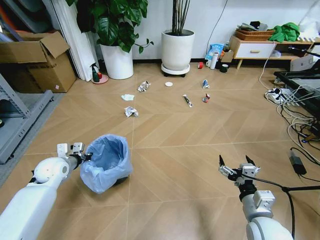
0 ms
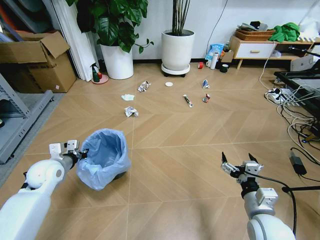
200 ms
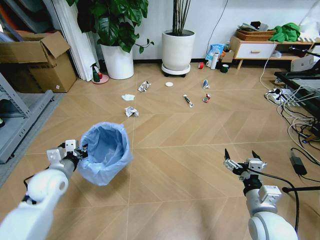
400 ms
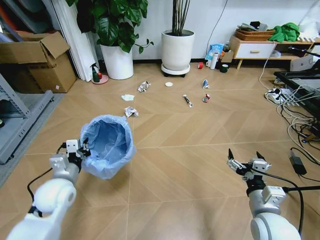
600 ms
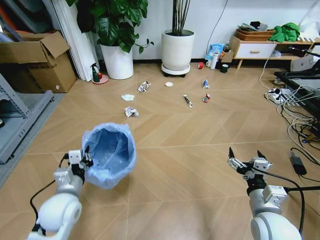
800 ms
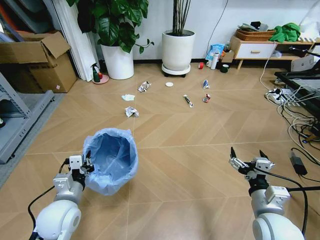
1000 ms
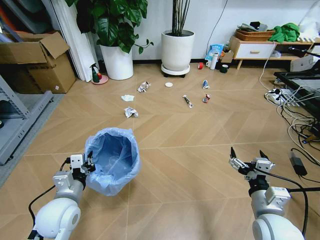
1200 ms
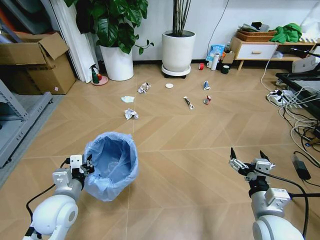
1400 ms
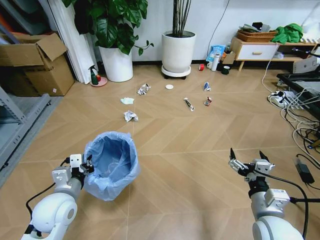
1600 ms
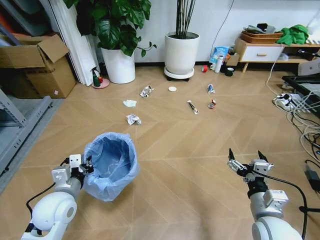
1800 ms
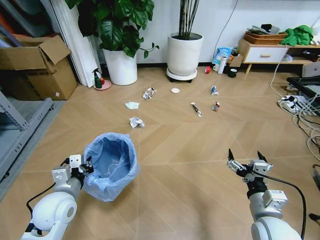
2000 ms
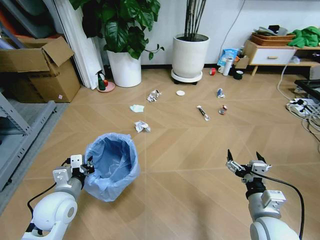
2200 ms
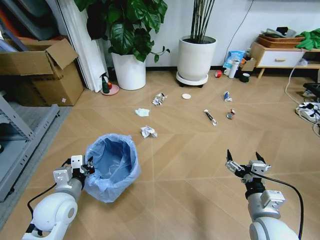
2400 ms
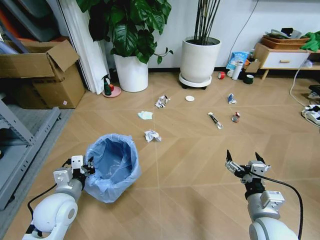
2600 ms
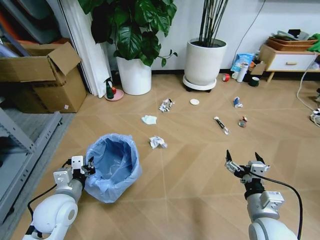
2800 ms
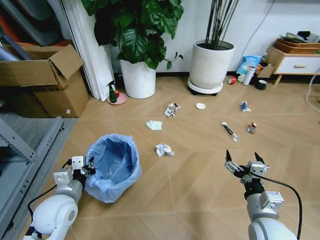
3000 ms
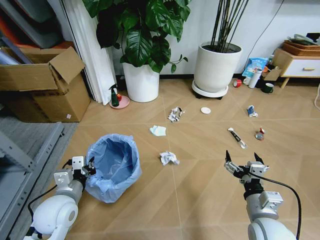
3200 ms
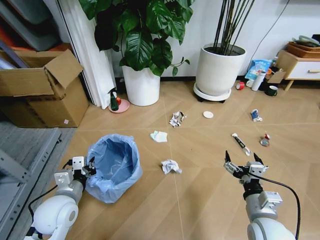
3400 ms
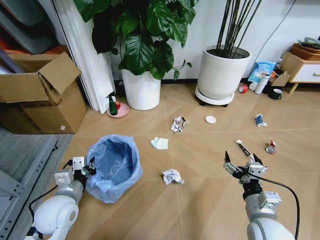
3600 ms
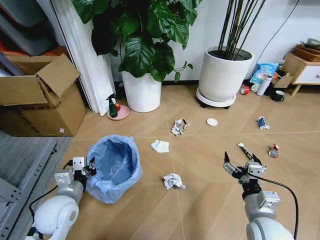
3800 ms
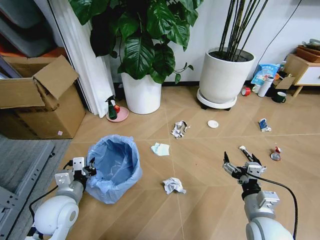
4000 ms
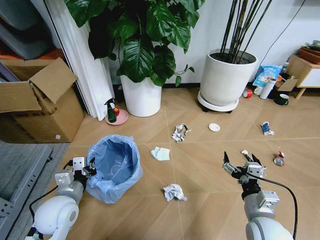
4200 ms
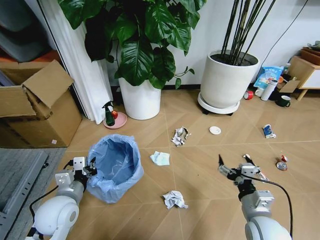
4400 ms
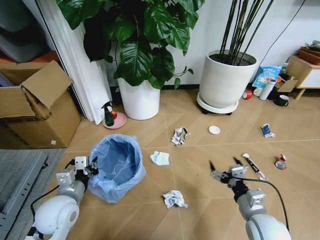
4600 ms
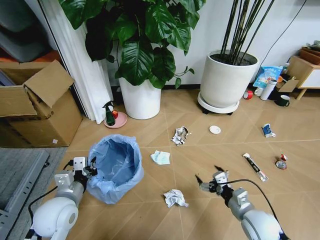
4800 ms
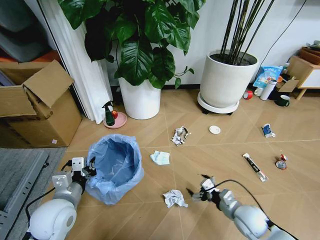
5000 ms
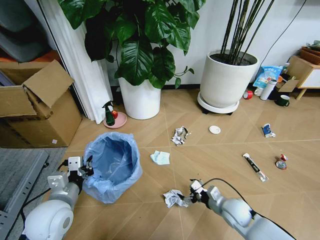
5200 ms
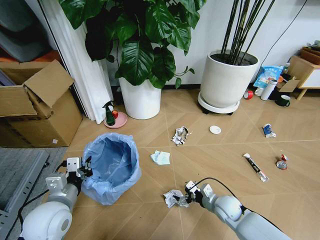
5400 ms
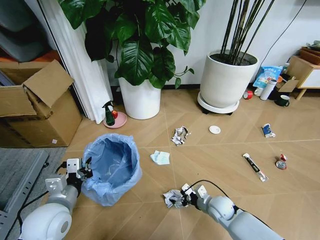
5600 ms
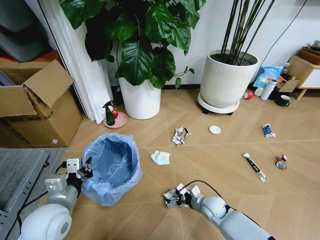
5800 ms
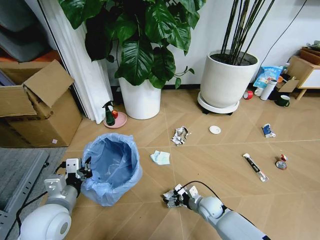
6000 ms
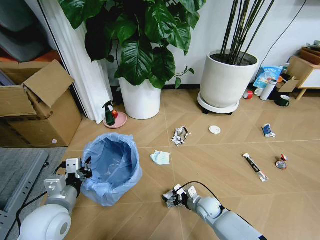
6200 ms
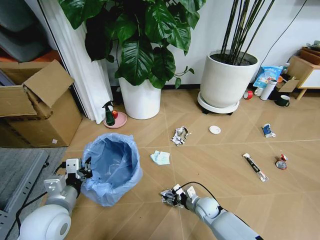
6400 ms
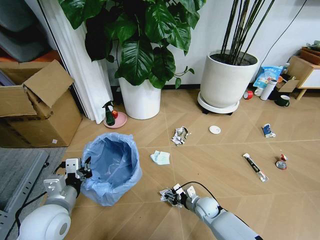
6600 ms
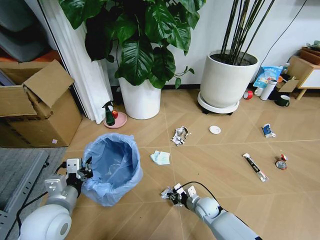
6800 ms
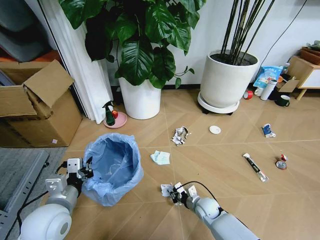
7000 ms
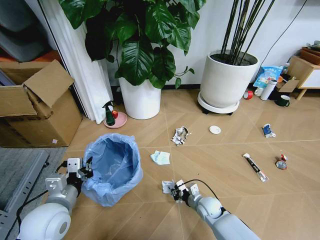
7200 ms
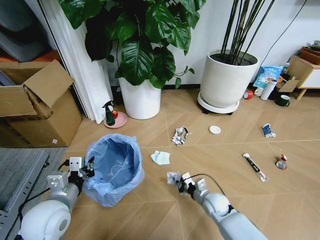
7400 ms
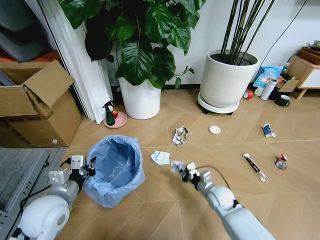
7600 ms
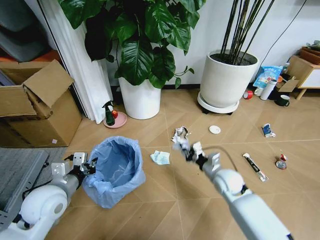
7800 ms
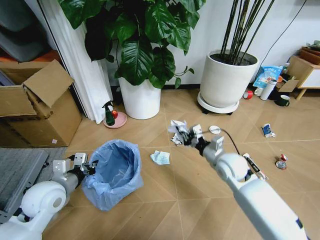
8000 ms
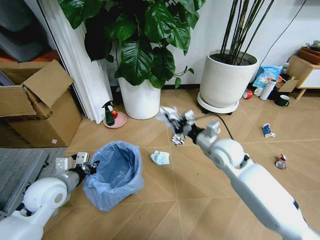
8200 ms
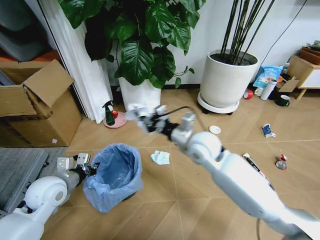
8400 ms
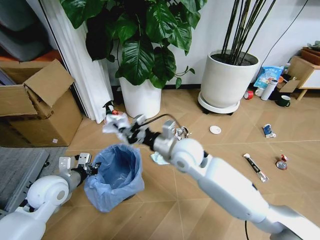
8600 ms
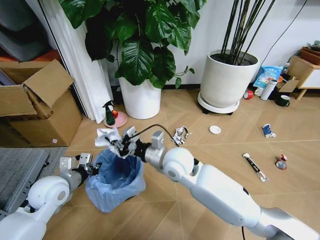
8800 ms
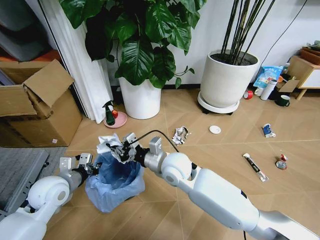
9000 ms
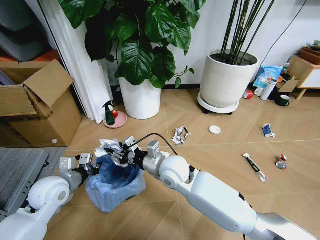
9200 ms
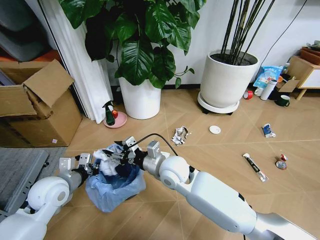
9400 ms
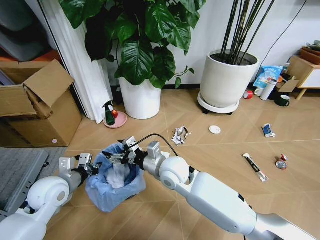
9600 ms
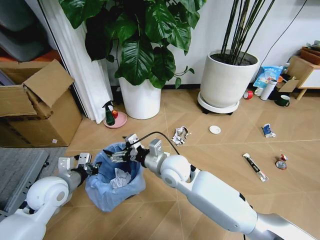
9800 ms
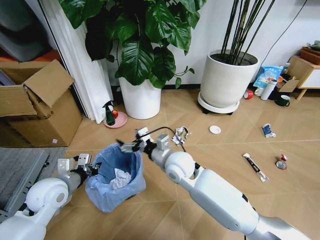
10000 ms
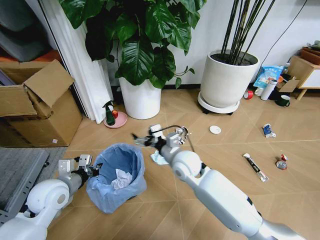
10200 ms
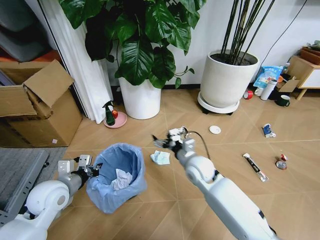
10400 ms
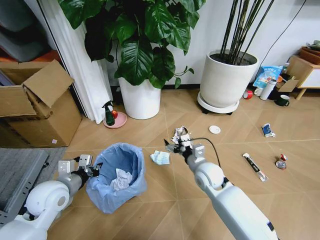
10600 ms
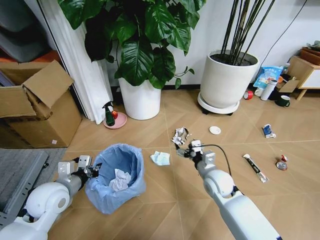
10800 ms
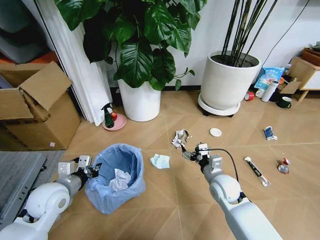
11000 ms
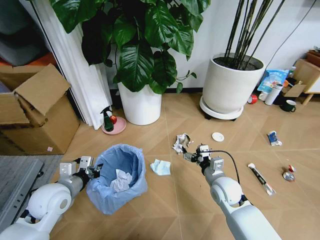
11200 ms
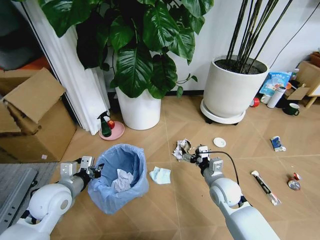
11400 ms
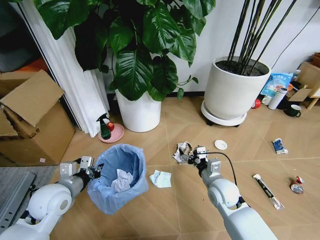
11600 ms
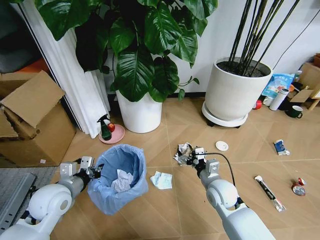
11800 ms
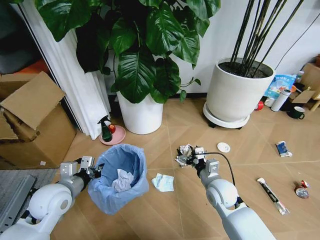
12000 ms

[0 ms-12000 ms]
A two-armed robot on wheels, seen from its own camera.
Task of the whole recording: Pick up the trash bin and place the garbage on the floor into it.
0 ms to 1600 ms: The left gripper moves backward and to the right, roughly 20 cm.
4400 ms to 6000 ms: The right gripper shifts about 20 cm downward and forward.
6000 ms to 7600 ms: The right gripper travels upward by approximately 5 cm, and closes.
7600 ms to 9000 ms: The left gripper travels forward by about 5 cm, while the right gripper moves to the left and upward, some 25 cm.
9000 ms to 10400 ms: The right gripper moves to the right and downward, roughly 10 cm, and opens.
10400 ms to 12000 ms: The right gripper heads to the right and backward, covering some 10 cm.

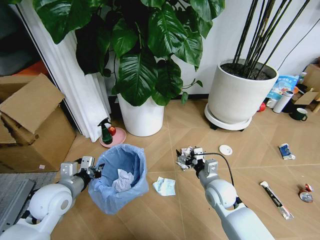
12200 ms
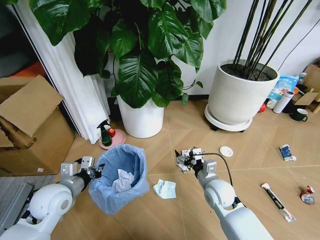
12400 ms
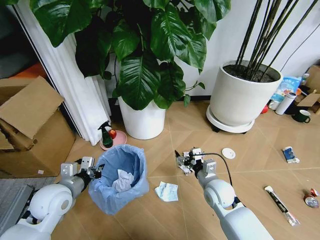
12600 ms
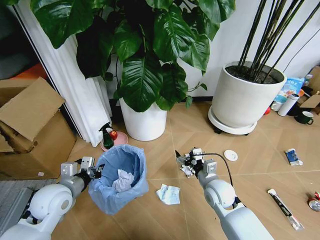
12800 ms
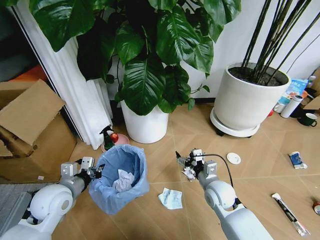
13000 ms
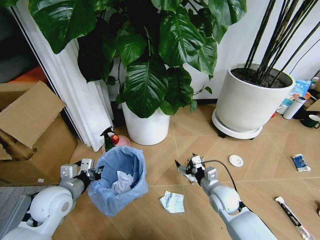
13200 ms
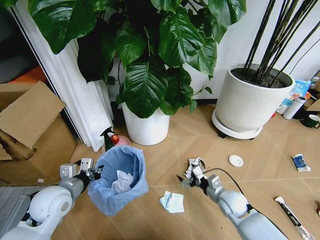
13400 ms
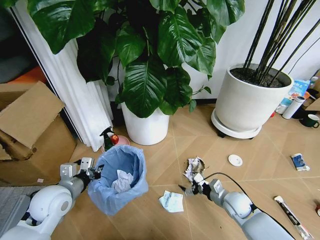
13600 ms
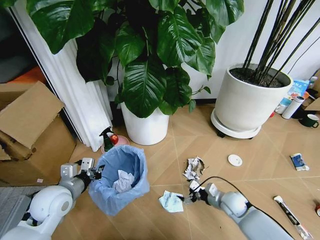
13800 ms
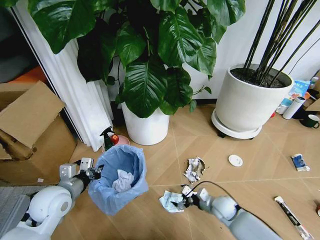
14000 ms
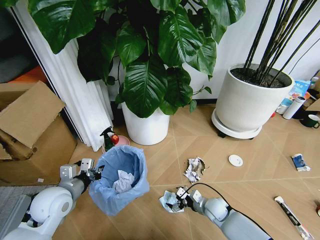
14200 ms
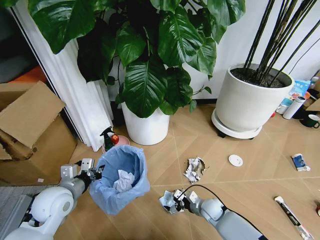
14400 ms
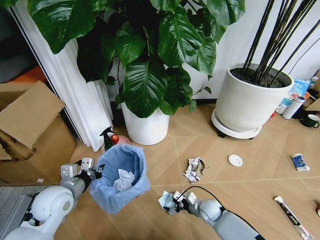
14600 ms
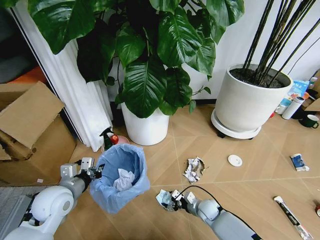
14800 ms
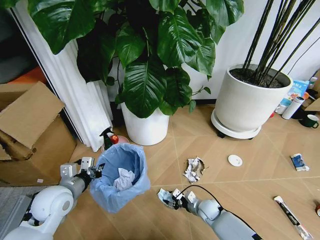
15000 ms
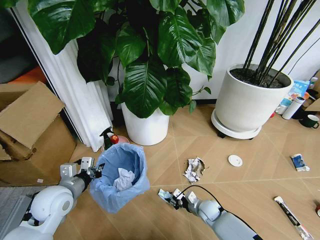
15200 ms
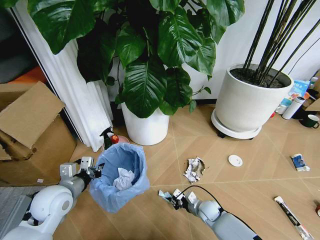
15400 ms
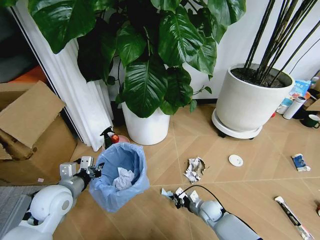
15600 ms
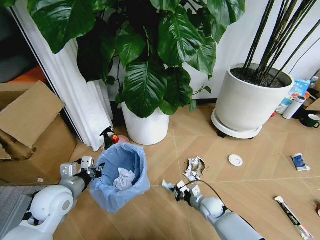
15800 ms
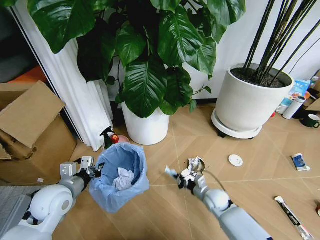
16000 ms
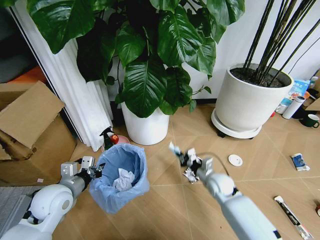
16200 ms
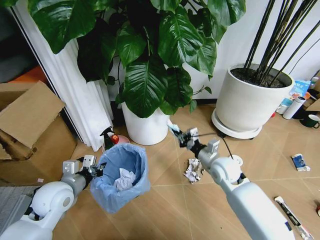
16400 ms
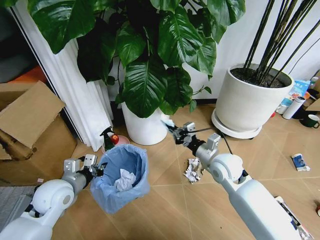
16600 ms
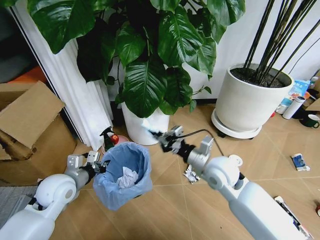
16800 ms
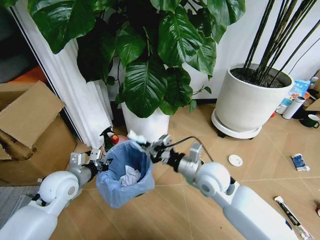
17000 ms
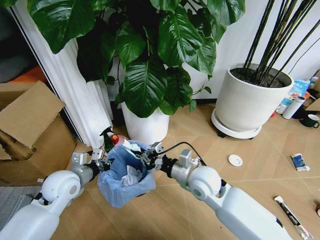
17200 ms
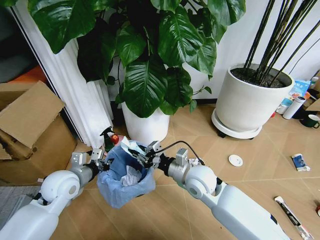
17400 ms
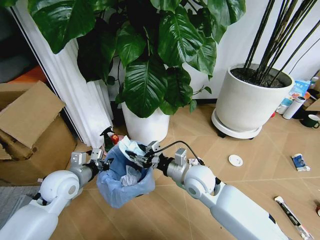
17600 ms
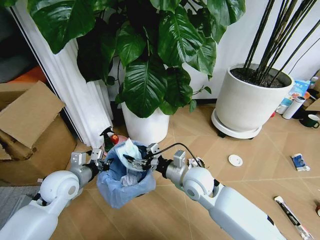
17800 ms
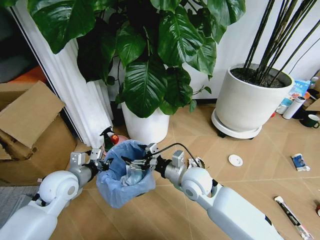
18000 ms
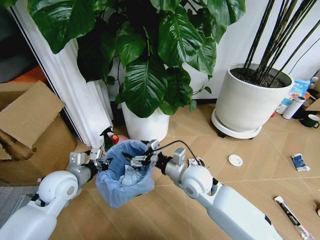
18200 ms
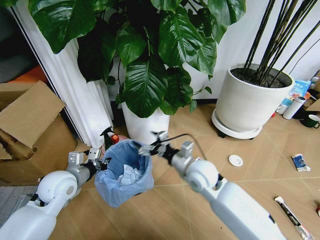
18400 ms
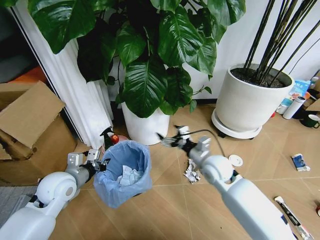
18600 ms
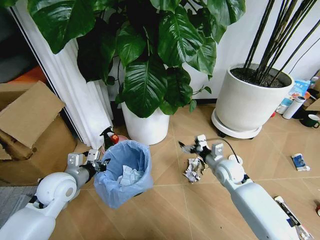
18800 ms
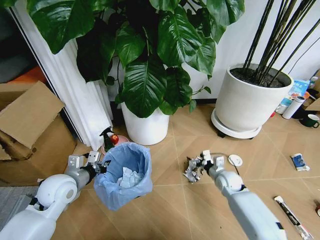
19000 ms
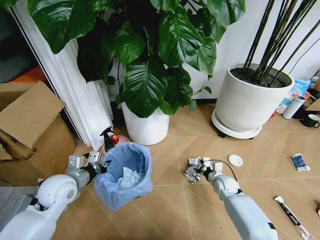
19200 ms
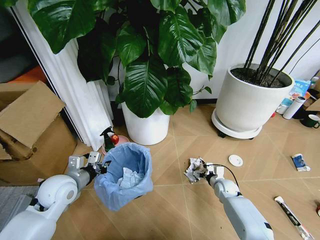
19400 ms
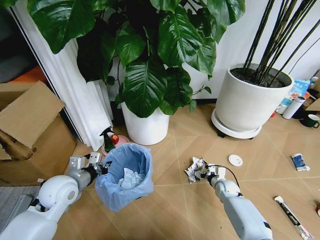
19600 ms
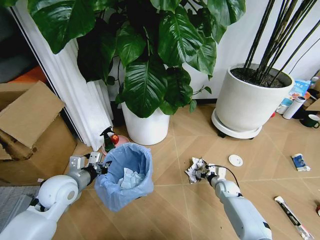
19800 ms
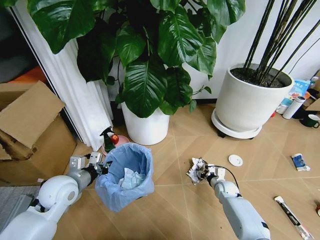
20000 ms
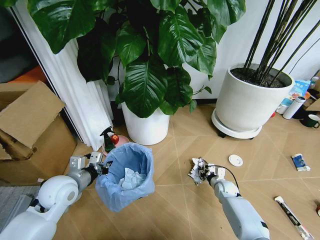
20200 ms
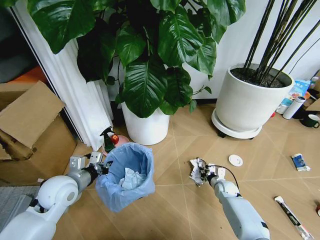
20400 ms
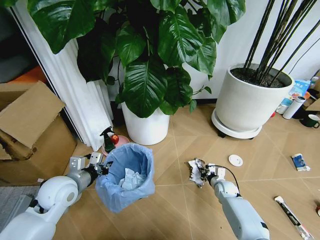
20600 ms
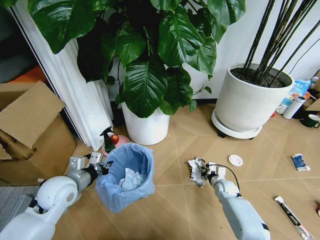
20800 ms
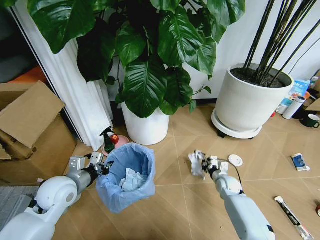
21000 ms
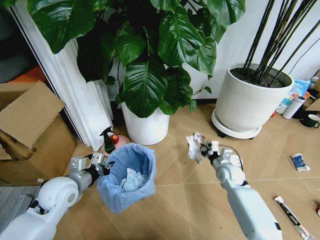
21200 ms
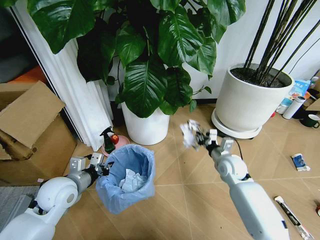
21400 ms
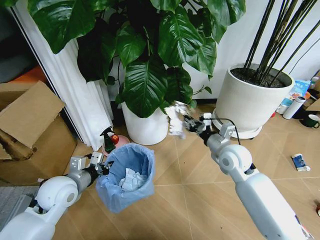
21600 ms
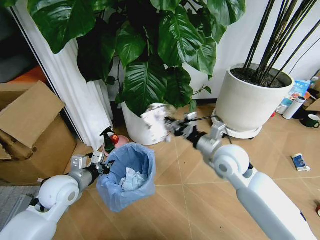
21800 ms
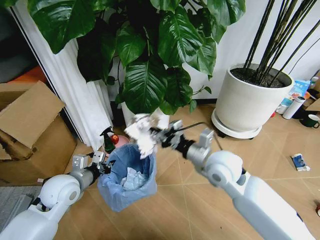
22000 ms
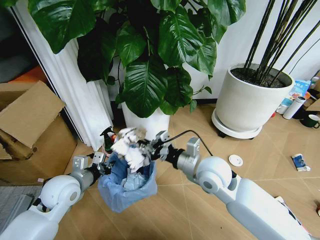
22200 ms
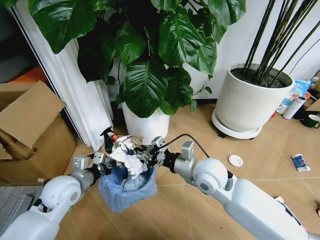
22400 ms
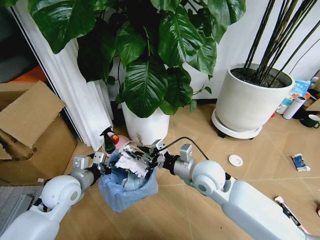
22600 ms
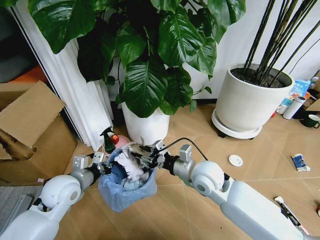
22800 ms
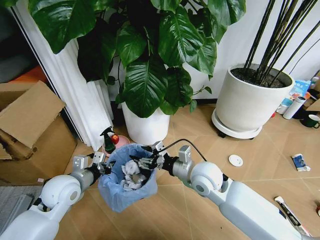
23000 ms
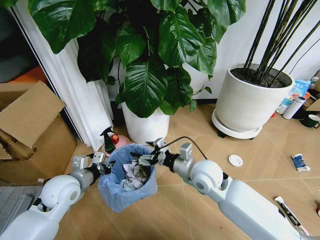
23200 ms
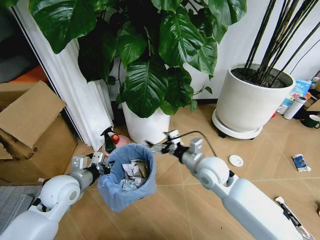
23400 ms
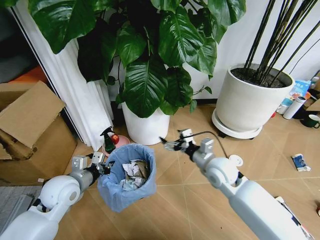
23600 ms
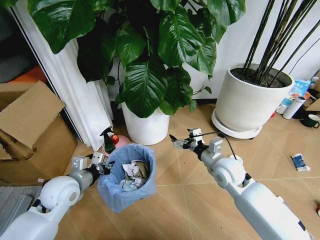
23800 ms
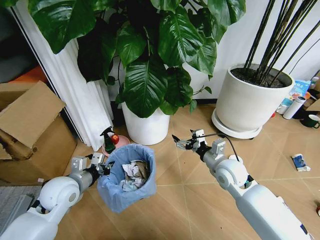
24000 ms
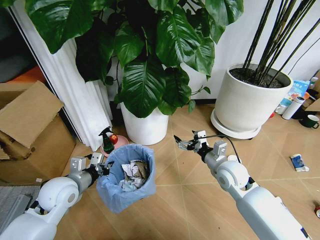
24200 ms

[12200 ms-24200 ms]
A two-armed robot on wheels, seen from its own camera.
Task of the whole recording: Pick up the trash bin and place the garbage on the floor into it.
12200 ms to 13800 ms: The right gripper moves downward and to the right, roughly 15 cm.
13800 ms to 15200 ms: The right gripper goes approximately 10 cm downward and to the left, and closes.
15200 ms to 16600 ms: The right gripper travels upward by approximately 30 cm.
16600 ms to 18200 ms: The right gripper travels to the left by some 10 cm, and opens.
18200 ms to 19800 ms: The right gripper moves downward and to the right, roughly 35 cm.
19800 ms to 21200 ms: The right gripper heads upward, covering about 10 cm, and closes up.
21200 ms to 22600 ms: The right gripper heads upward, to the left and backward, covering approximately 25 cm.
22600 ms to 24200 ms: The right gripper goes some 10 cm to the right and downward, and opens up.
